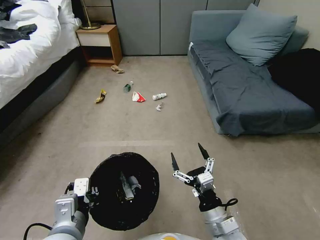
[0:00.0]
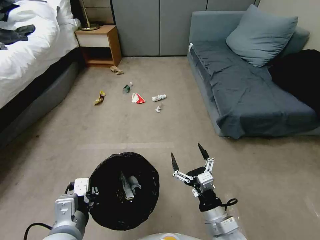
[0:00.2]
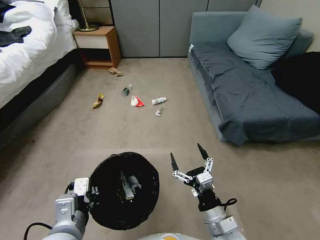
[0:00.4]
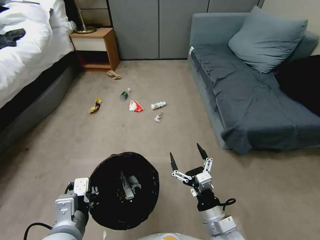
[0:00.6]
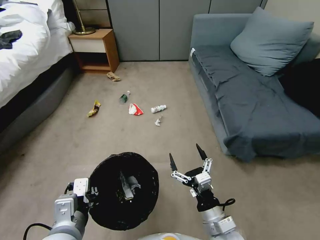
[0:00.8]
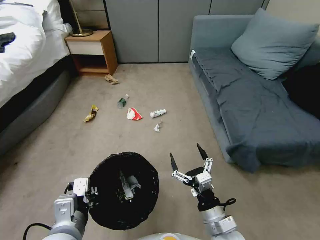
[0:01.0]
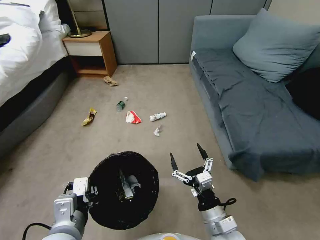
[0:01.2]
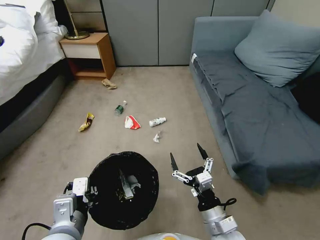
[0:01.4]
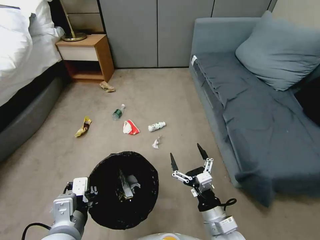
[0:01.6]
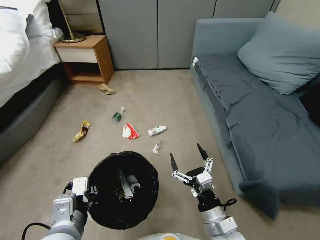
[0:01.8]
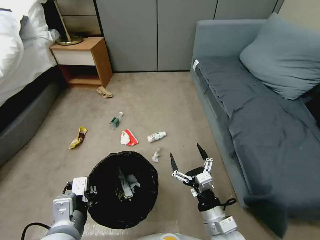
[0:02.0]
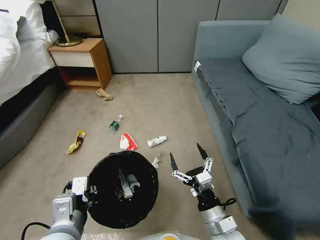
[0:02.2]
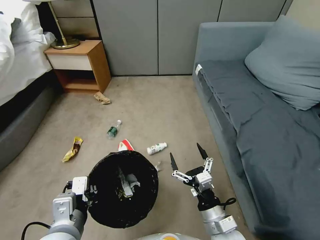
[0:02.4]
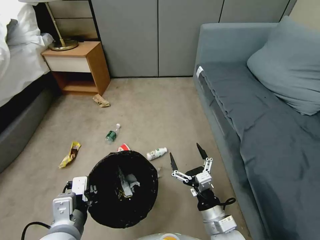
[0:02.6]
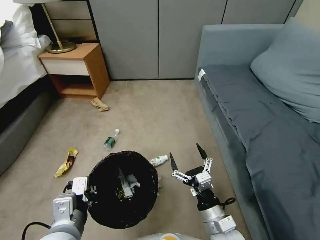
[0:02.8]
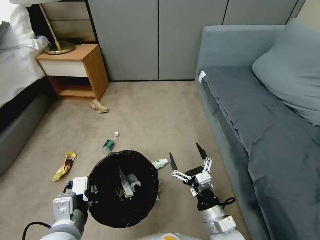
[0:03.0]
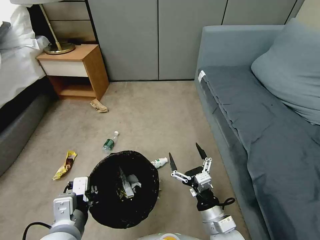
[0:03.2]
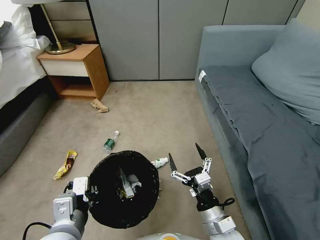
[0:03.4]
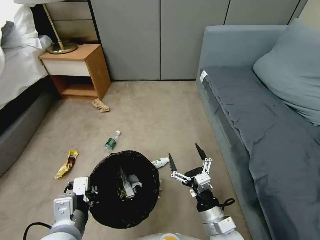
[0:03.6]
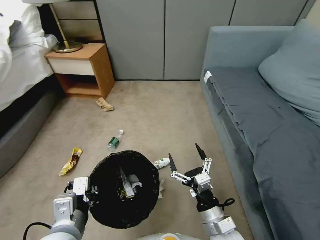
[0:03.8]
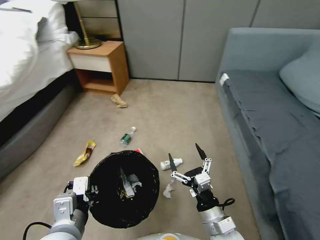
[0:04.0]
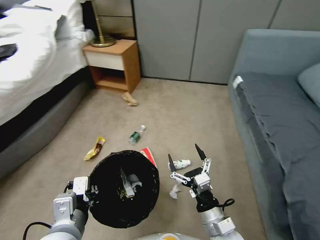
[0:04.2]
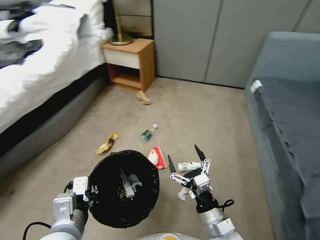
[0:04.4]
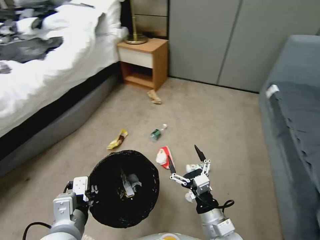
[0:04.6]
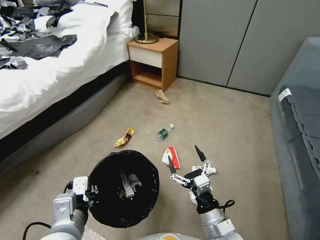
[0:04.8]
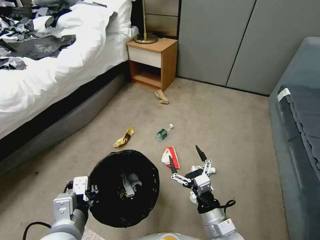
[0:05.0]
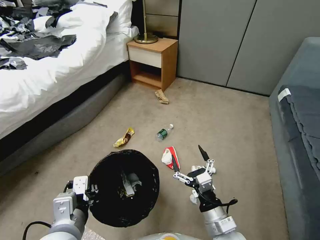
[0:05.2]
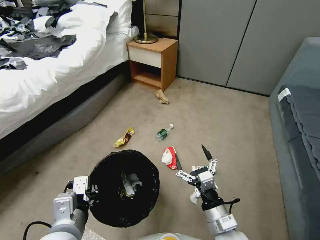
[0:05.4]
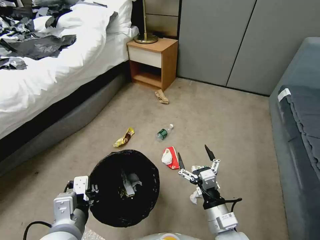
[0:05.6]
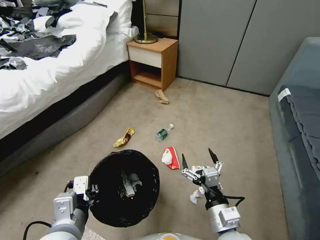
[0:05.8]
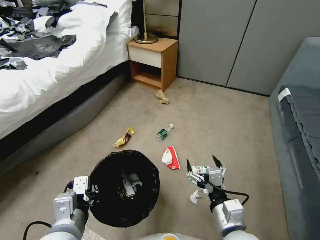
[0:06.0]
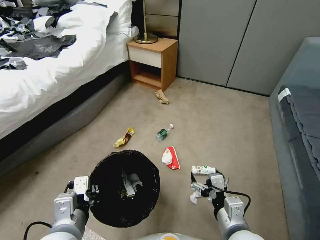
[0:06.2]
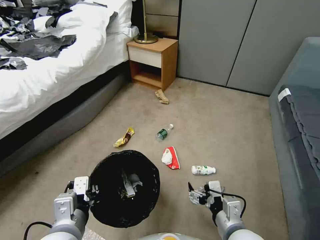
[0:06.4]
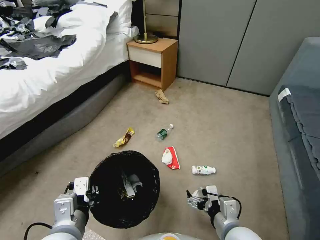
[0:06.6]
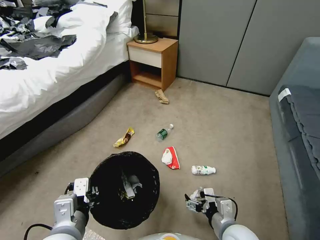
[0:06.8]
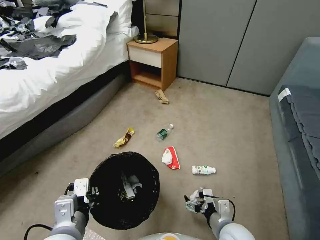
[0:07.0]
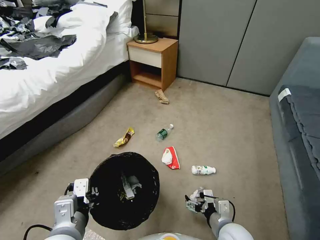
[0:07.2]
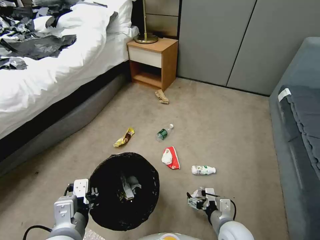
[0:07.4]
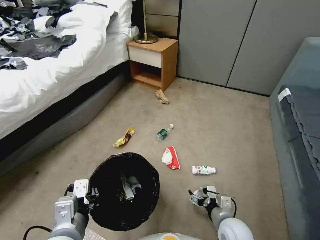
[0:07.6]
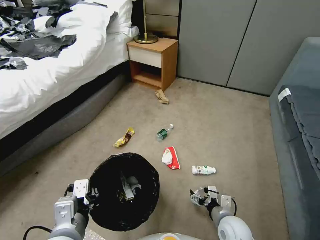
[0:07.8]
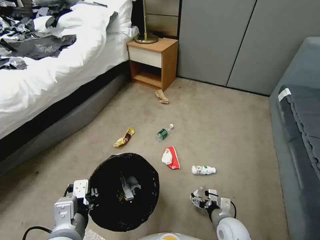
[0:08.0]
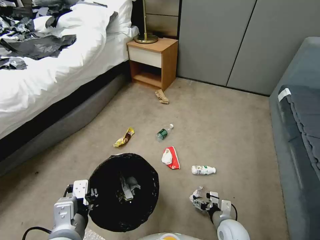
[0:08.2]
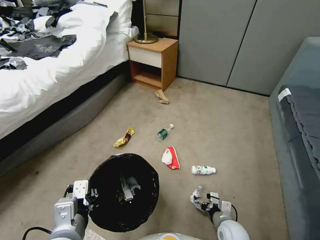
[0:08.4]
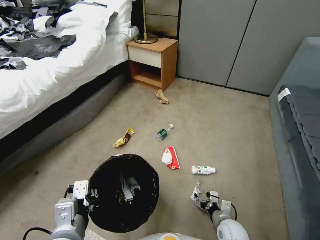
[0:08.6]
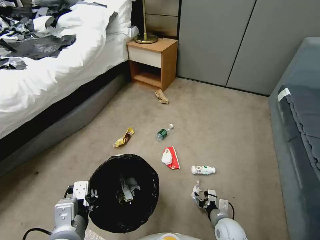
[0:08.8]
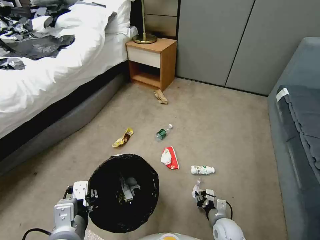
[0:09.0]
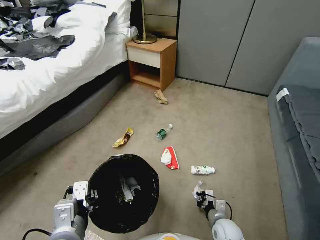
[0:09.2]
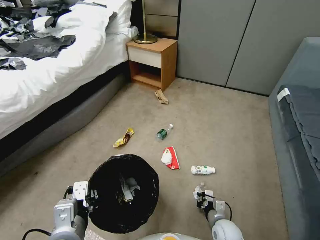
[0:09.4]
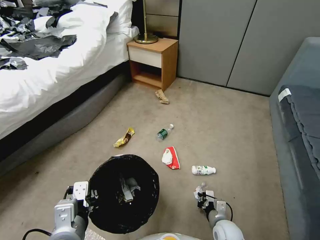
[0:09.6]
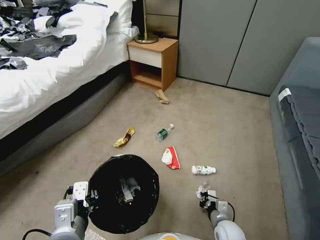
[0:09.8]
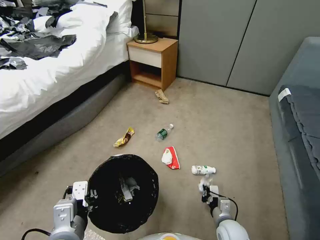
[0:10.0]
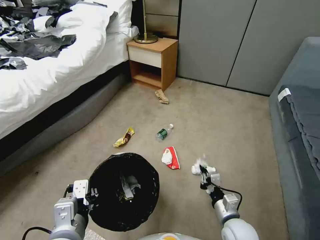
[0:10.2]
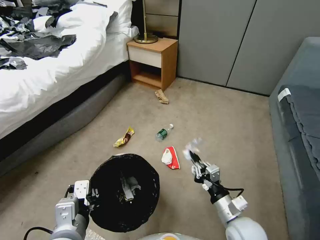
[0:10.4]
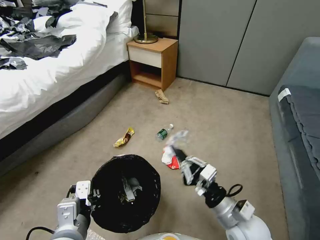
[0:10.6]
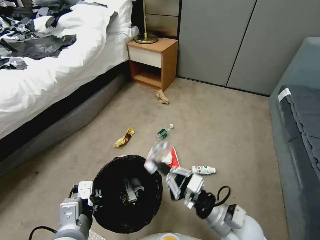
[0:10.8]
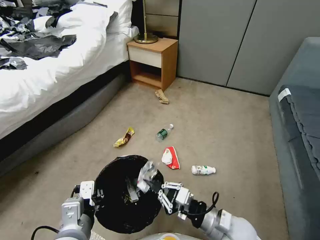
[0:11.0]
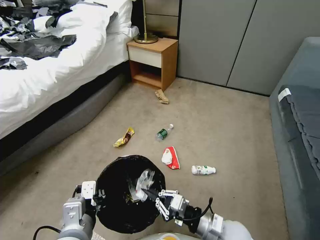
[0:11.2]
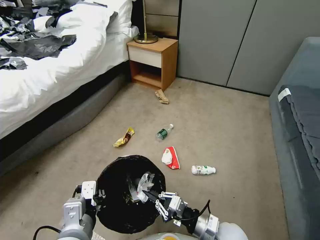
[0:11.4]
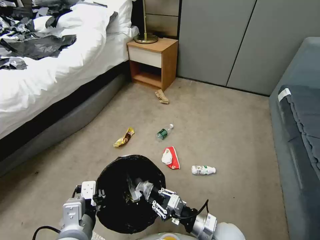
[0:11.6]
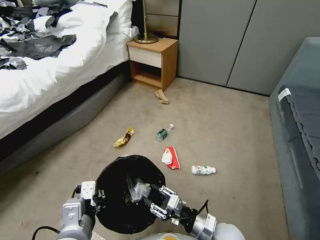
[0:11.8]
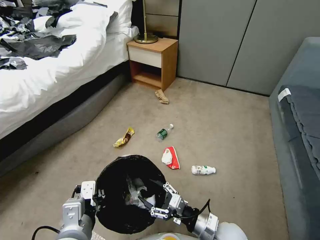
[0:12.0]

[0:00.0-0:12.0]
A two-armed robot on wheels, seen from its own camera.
Task of the whole recording: Pick up the trash bin, then pick up the garbage from the floor and place it into the trash bin.
0:04.4 to 0:06.0: The right gripper shifts approximately 5 cm upward.
0:06.0 to 0:07.6: The right gripper heads downward, covering about 15 cm.
0:07.6 to 0:09.0: The right gripper shifts some 10 cm downward, and closes up.
0:09.0 to 0:10.4: The right gripper is displaced upward by roughly 15 cm.
0:10.4 to 0:12.0: The right gripper changes place by some 5 cm, and opens up.

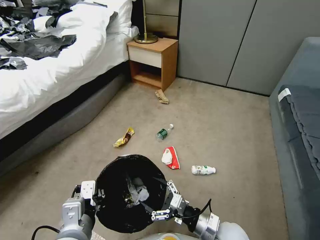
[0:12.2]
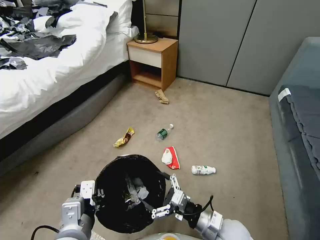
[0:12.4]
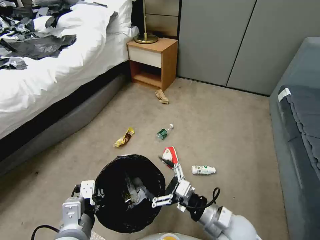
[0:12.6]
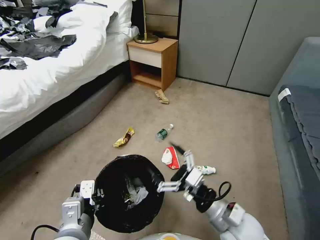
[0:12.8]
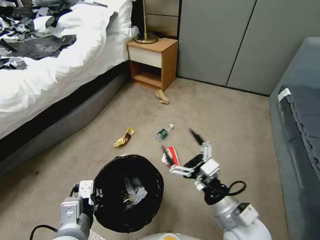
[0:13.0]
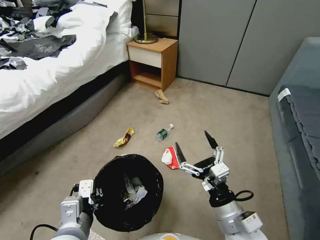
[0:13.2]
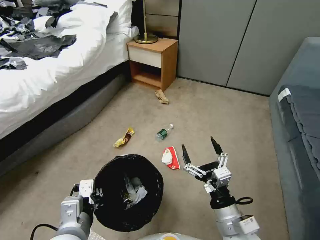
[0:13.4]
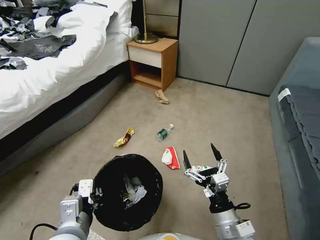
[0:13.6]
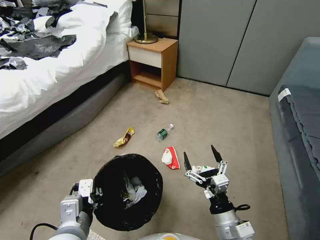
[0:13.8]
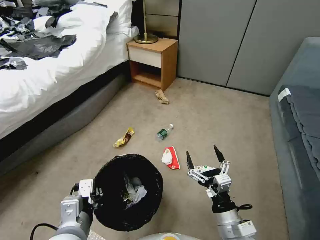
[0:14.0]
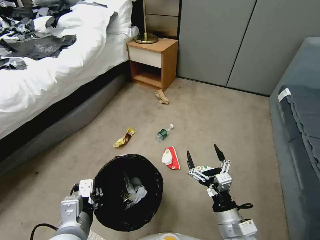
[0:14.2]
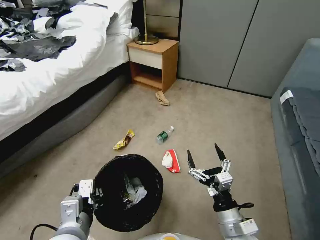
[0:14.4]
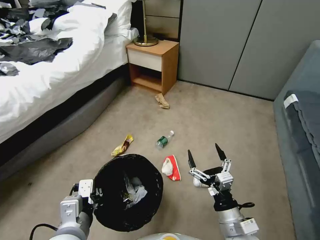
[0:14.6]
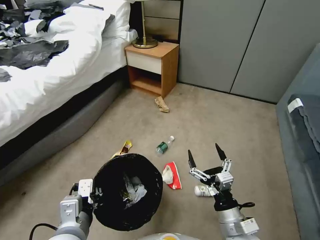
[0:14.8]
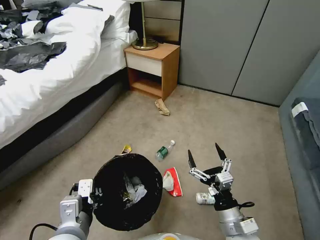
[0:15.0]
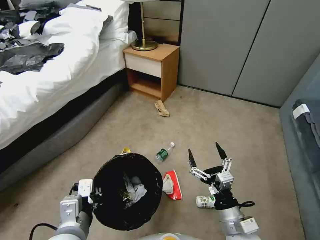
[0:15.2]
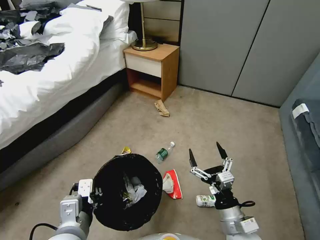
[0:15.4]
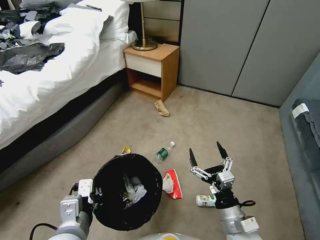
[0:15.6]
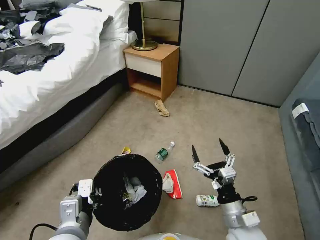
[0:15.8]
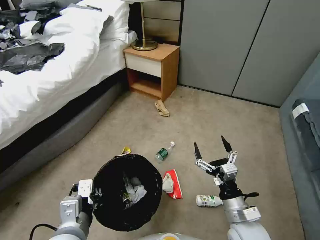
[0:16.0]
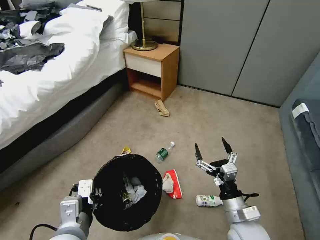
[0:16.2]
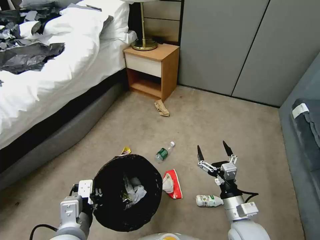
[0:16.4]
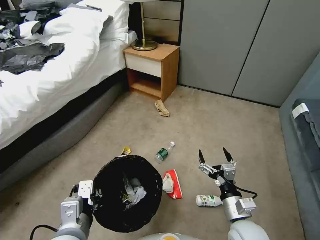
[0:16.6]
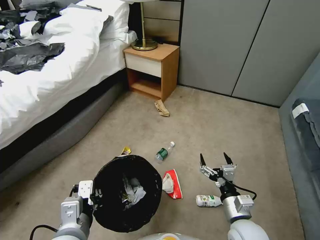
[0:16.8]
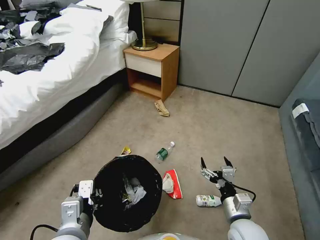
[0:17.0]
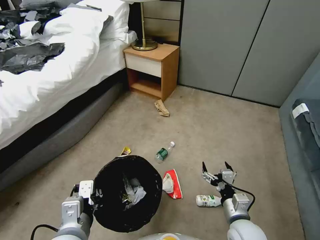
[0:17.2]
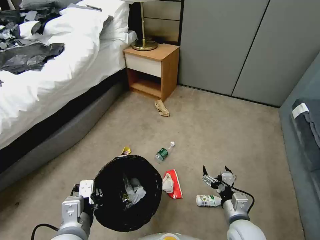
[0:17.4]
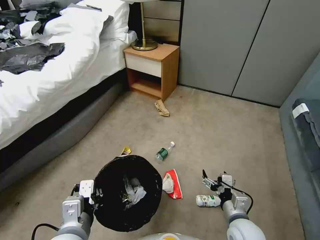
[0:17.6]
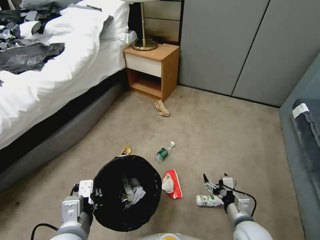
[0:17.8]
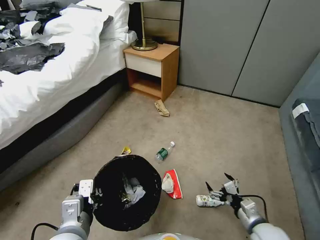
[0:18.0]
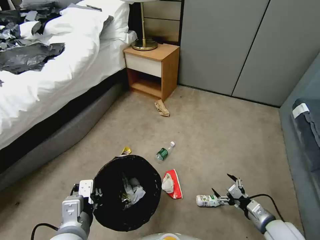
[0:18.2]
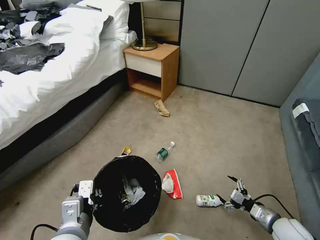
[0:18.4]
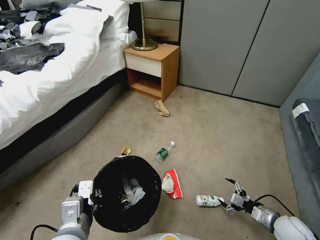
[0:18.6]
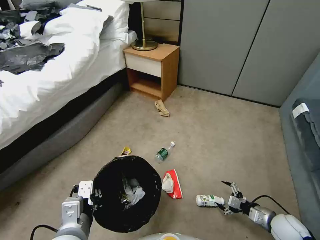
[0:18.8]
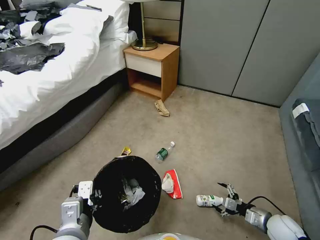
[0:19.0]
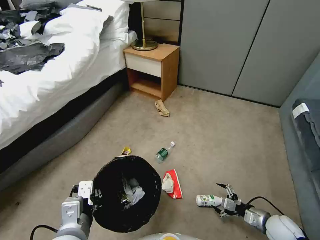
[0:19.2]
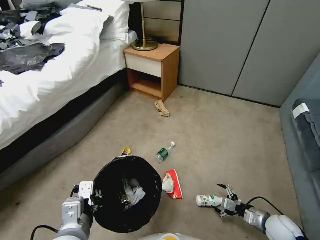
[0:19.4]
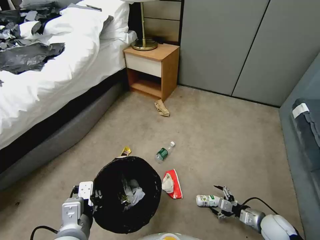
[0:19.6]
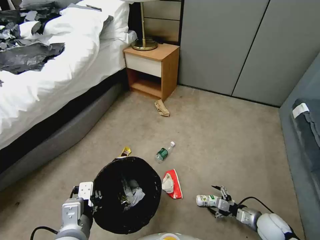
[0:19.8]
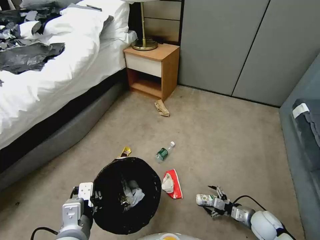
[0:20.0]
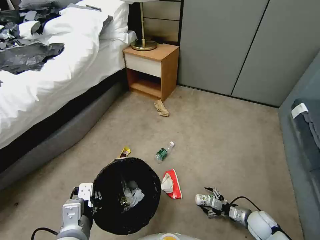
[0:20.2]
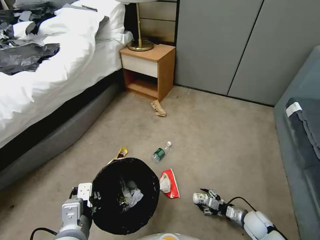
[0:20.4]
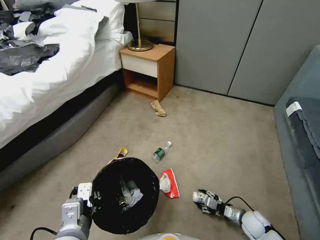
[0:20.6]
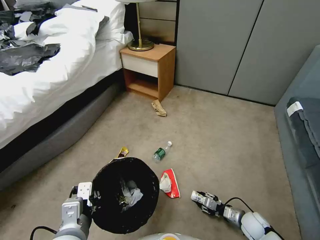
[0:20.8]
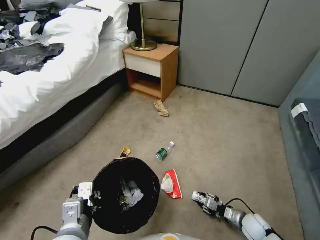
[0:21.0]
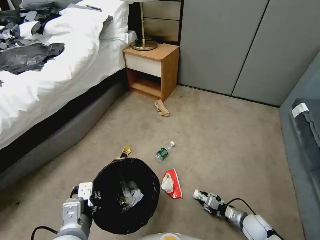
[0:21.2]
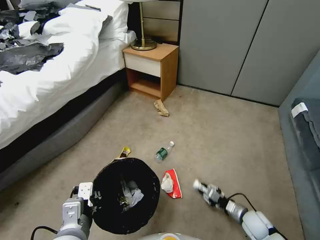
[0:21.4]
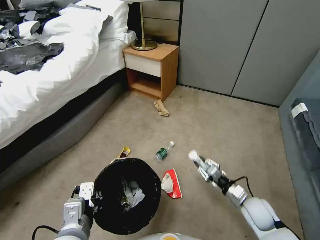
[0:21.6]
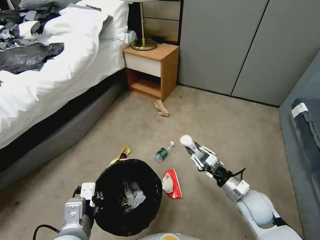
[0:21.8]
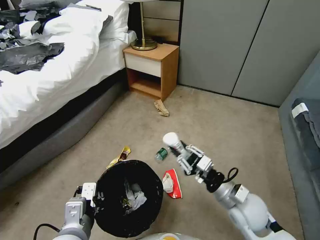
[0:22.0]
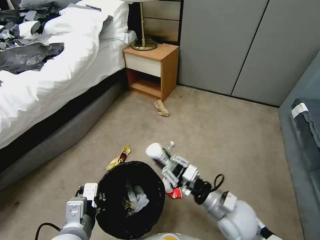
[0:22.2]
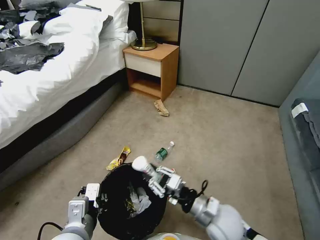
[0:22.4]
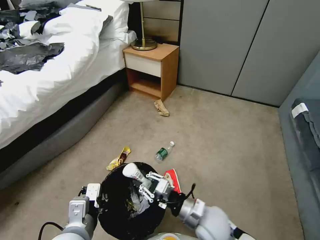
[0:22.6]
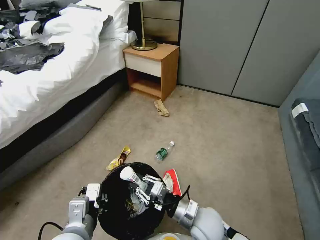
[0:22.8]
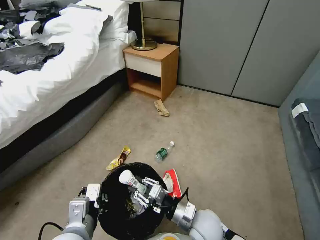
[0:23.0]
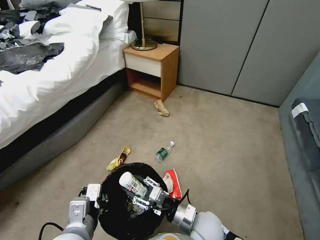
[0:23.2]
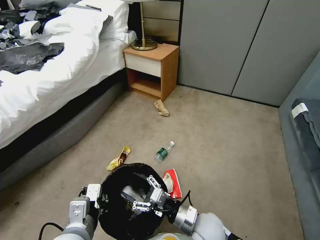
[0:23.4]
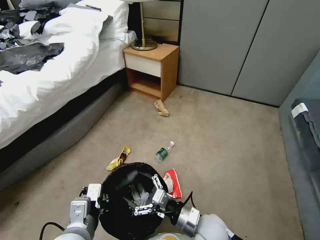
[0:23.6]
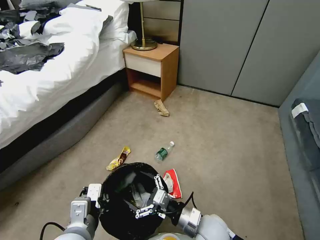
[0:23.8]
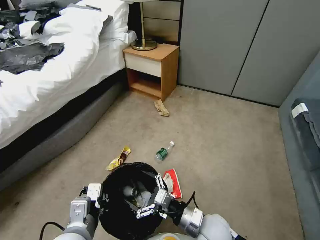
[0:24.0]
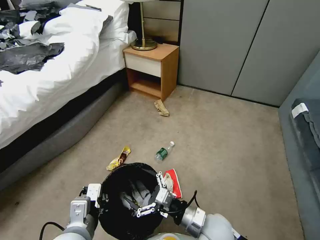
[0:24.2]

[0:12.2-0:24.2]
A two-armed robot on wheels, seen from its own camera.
Task of the whole recording: Pick up the trash bin, then pick up the garbage from the floor and place it into the trash bin.
0:15.2 to 0:16.6: The grippers make only small movements.
0:16.6 to 0:18.2: The right gripper shifts some 15 cm to the right and downward.
0:18.2 to 0:19.8: The right gripper travels downward by roughly 10 cm.
0:19.8 to 0:21.2: The right gripper moves downward, roughly 5 cm, and closes its fingers.
0:21.2 to 0:22.6: The right gripper shifts roughly 30 cm to the left and upward.
0:22.6 to 0:24.2: The right gripper opens its fingers.
